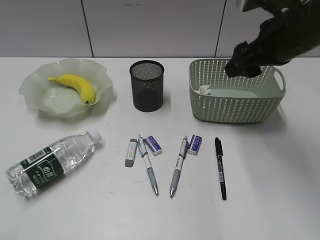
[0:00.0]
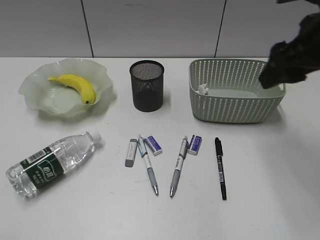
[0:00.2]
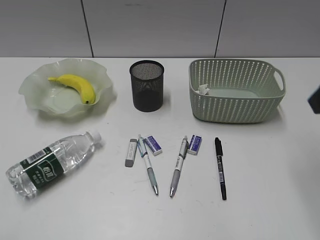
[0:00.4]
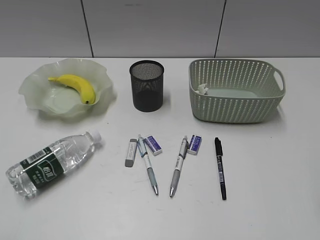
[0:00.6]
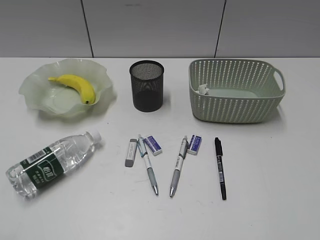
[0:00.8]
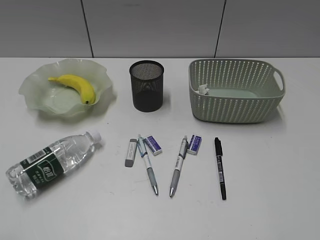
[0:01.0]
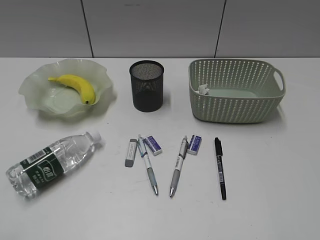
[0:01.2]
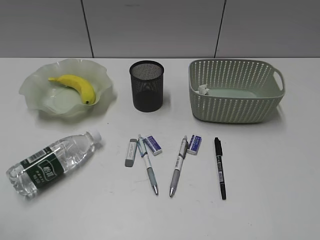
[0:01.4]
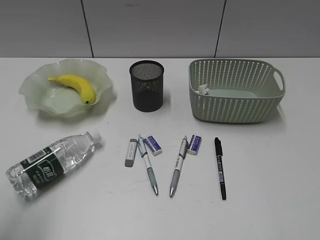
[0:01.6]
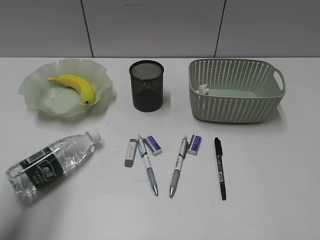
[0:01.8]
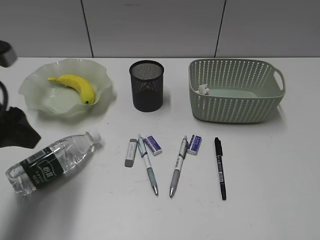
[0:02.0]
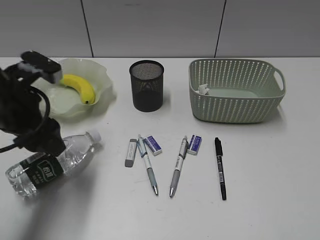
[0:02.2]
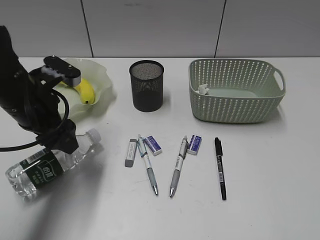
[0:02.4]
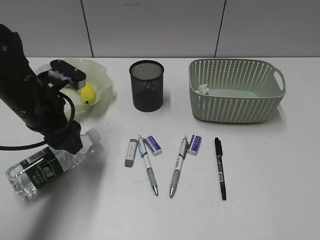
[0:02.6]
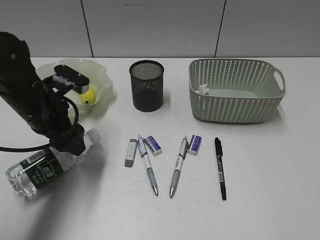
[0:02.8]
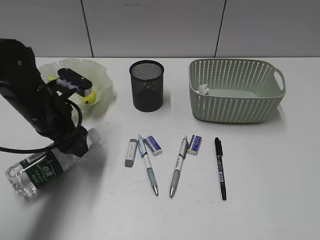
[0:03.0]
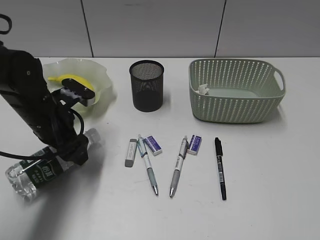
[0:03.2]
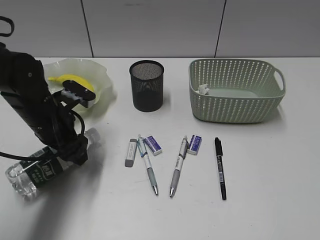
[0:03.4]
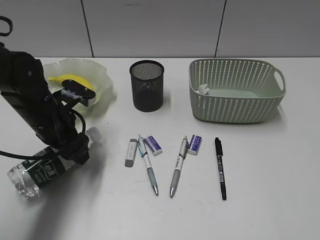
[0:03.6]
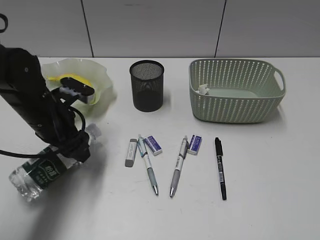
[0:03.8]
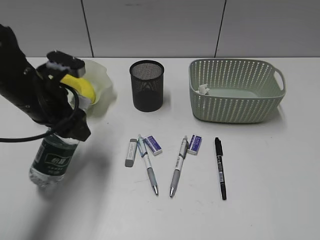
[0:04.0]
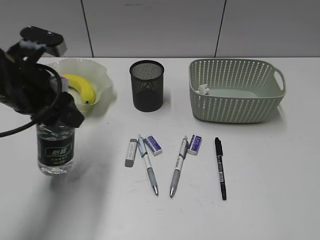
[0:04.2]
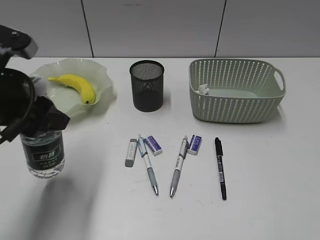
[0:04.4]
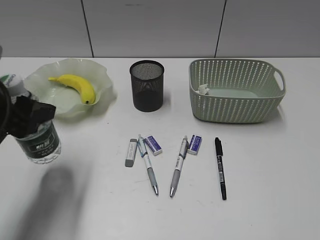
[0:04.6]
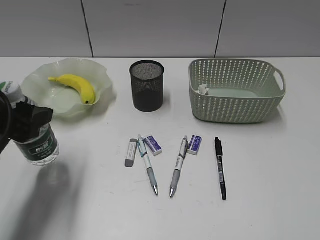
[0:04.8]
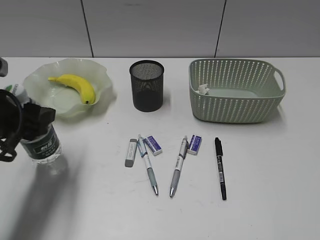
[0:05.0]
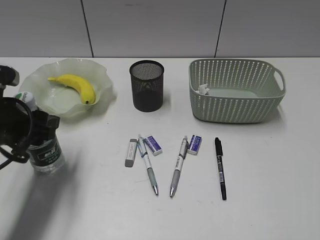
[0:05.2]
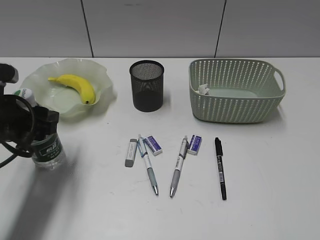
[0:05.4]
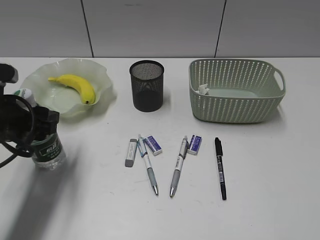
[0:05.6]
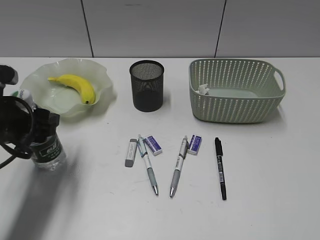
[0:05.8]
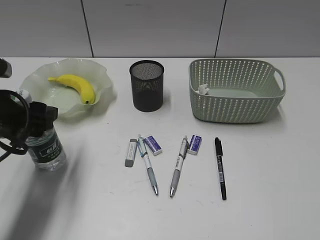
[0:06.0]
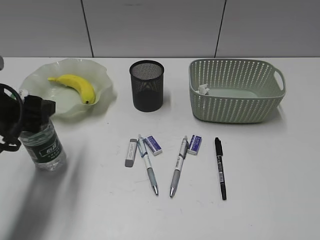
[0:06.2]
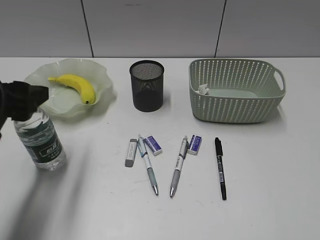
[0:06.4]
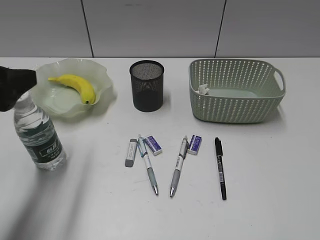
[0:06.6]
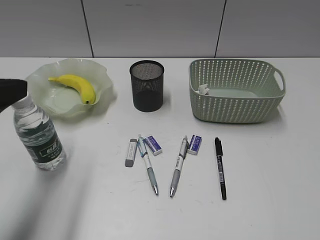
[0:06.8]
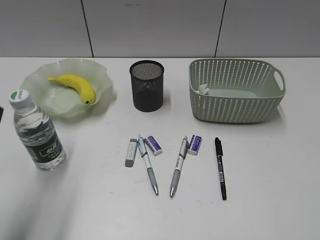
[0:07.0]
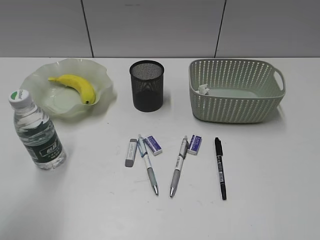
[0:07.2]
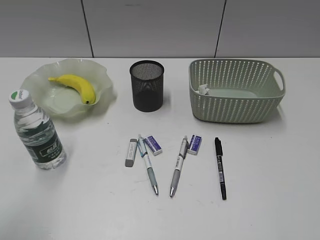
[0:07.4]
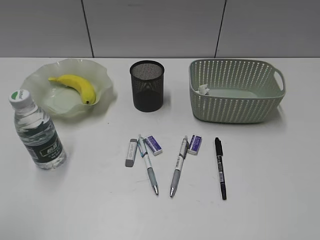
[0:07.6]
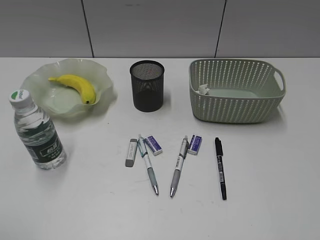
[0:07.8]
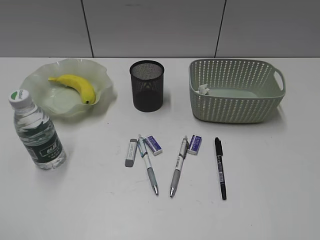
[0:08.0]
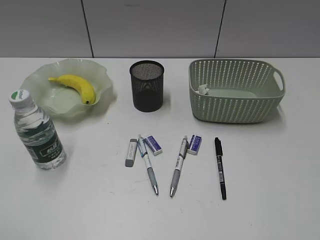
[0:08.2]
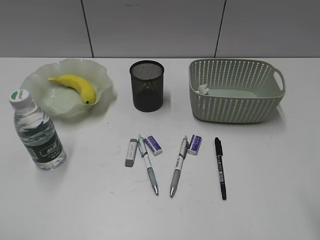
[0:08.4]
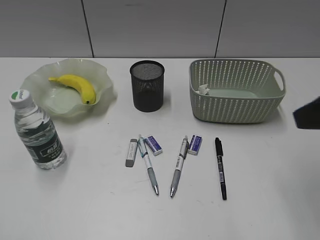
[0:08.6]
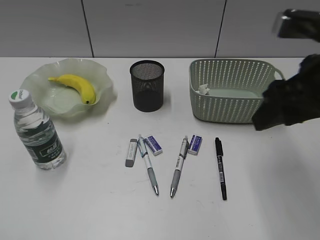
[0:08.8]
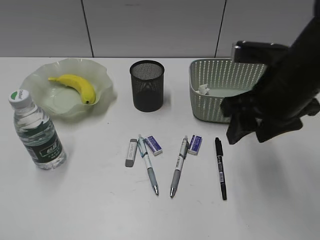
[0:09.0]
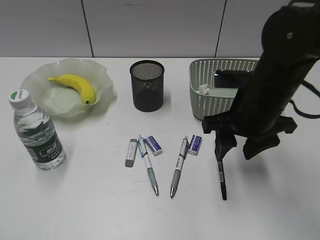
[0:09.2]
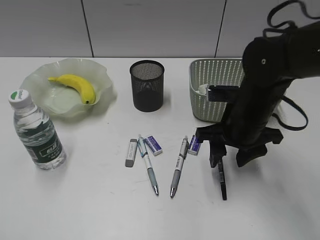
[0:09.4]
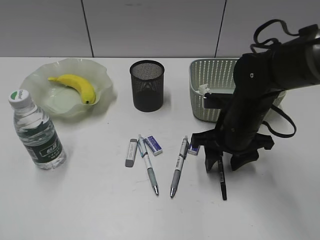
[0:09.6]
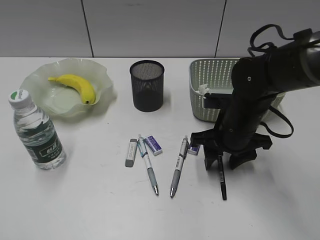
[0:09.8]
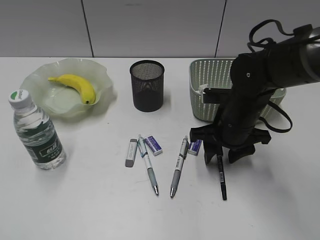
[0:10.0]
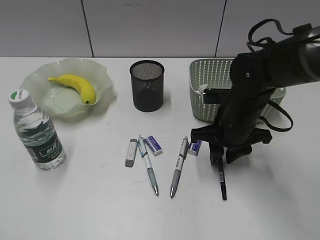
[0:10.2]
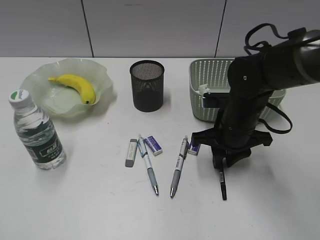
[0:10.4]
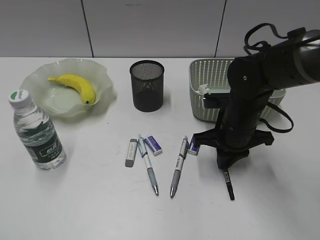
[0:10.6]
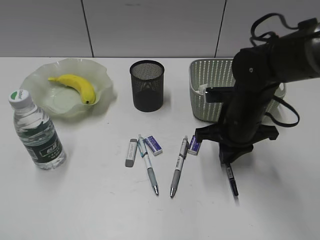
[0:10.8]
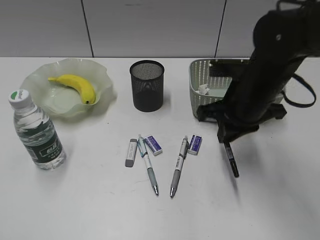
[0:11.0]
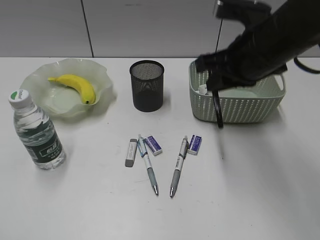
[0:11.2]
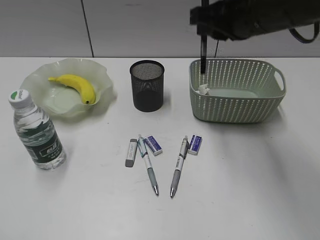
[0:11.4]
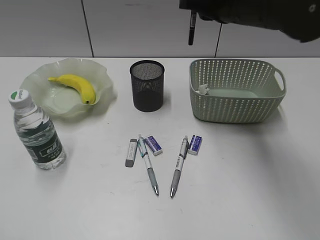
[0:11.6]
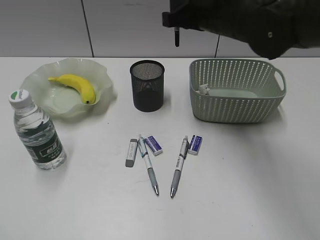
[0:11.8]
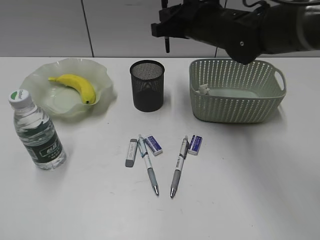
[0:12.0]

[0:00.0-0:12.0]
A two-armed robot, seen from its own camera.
Step, 0:00.0 to 0:03.4: Grasp the bottle with left gripper.
Step, 0:03.6 to 0:06.6: Stand the bottle with left gripper.
Step, 0:06.8 to 0:10.6: Grasp the black pen with right gripper.
0:00.0 to 0:01.6: The left gripper moves forward, some 10 cm. The right gripper travels backward by some 35 cm.
0:01.6 to 0:03.0: The left gripper heads forward, downward and to the right, covering some 30 cm, and opens.
0:03.0 to 0:04.4: The left gripper goes roughly 10 cm upward and backward.
0:04.4 to 0:06.0: The left gripper is displaced downward by roughly 5 cm.
0:06.0 to 0:07.6: The left gripper shifts approximately 20 cm backward and upward.
0:07.6 to 0:09.0: The right gripper shifts some 30 cm forward and to the left.
0:09.0 to 0:10.4: The right gripper heads downward, covering roughly 15 cm, and closes up.
0:10.4 to 0:12.0: The right gripper goes about 15 cm upward, forward and to the left, and closes up.

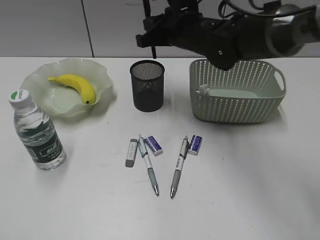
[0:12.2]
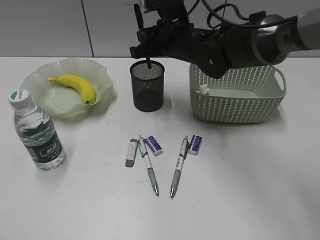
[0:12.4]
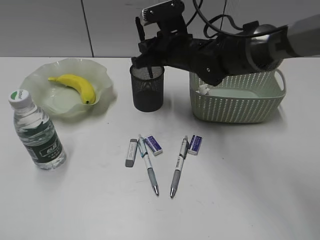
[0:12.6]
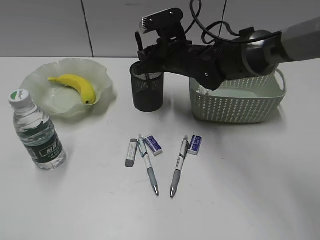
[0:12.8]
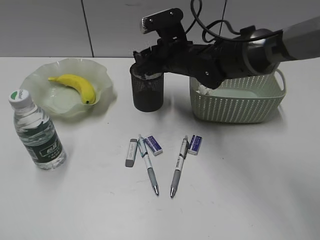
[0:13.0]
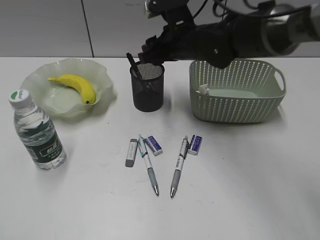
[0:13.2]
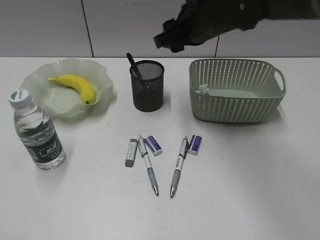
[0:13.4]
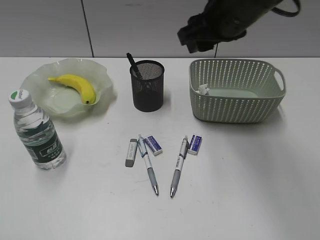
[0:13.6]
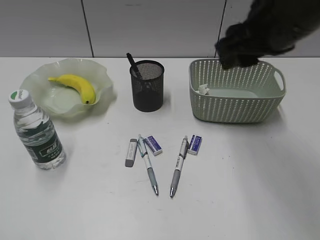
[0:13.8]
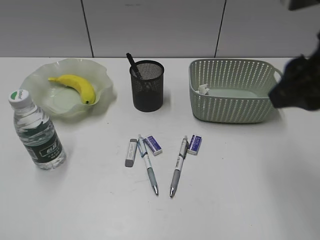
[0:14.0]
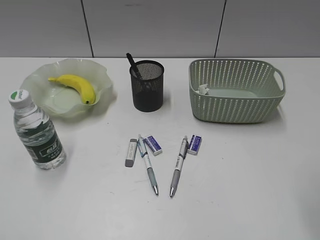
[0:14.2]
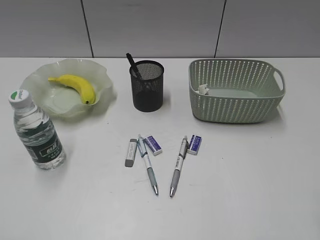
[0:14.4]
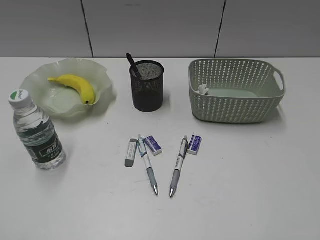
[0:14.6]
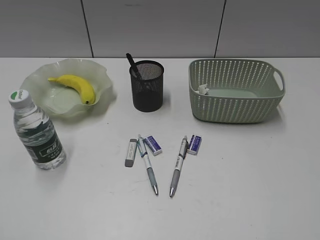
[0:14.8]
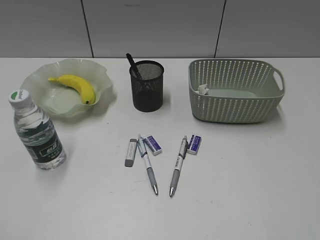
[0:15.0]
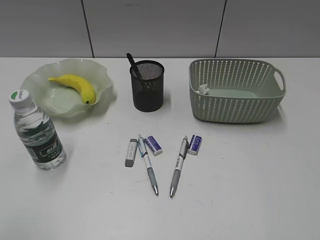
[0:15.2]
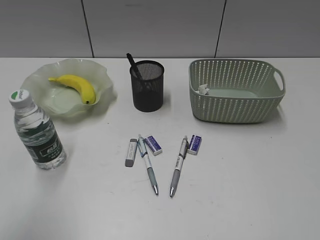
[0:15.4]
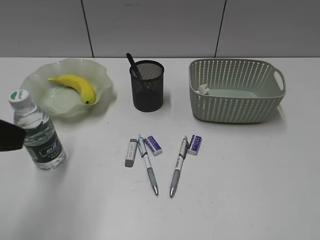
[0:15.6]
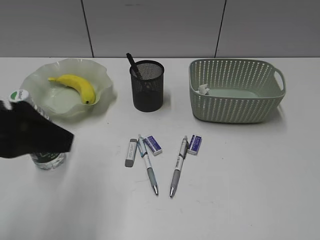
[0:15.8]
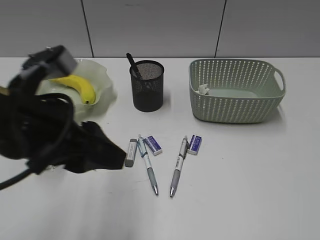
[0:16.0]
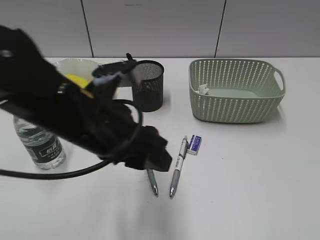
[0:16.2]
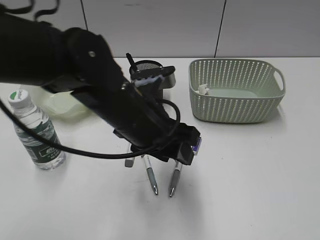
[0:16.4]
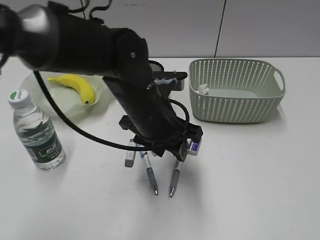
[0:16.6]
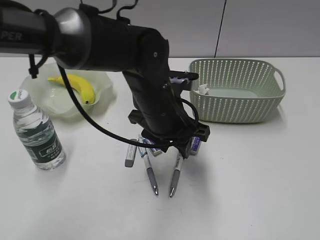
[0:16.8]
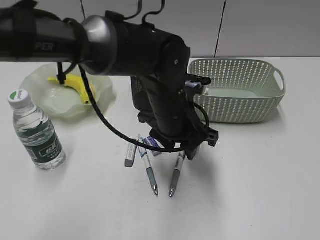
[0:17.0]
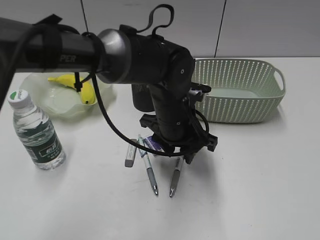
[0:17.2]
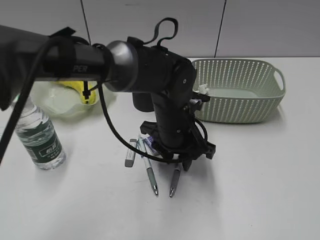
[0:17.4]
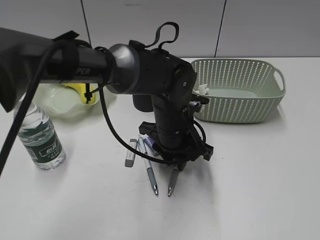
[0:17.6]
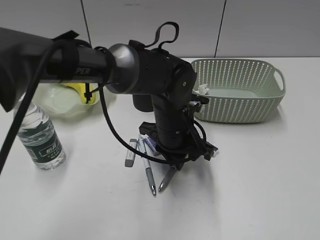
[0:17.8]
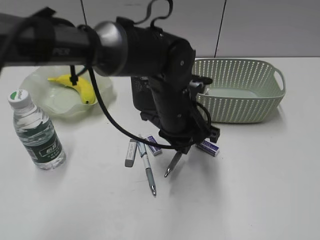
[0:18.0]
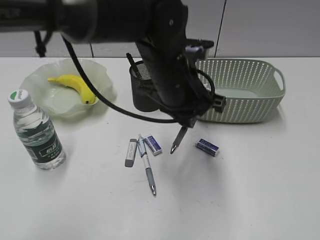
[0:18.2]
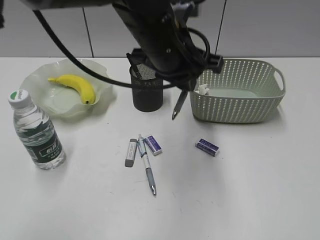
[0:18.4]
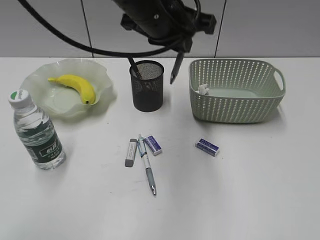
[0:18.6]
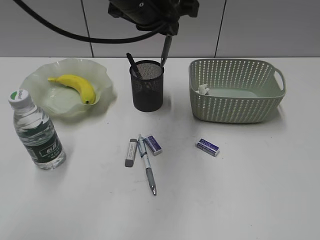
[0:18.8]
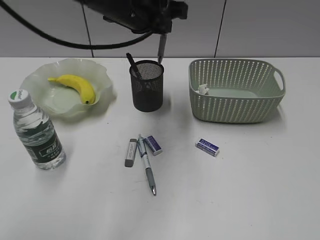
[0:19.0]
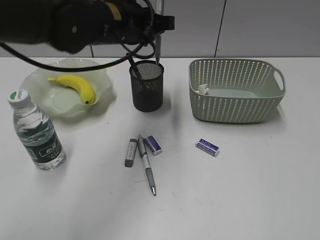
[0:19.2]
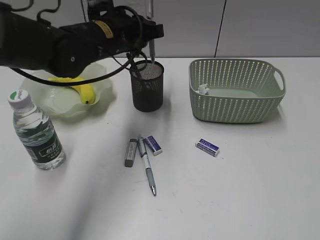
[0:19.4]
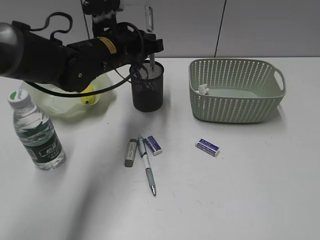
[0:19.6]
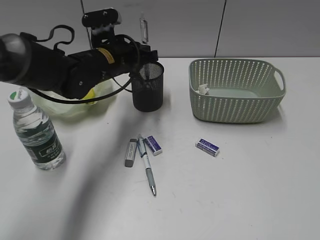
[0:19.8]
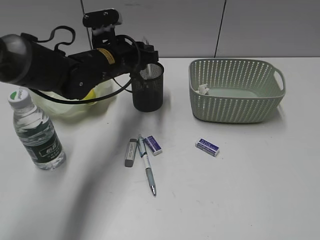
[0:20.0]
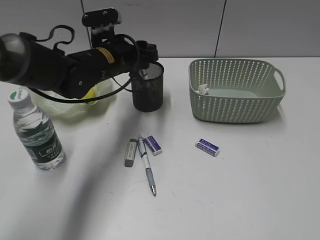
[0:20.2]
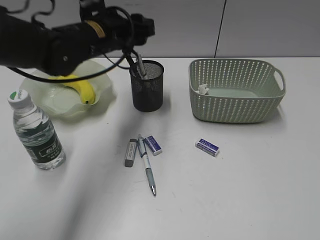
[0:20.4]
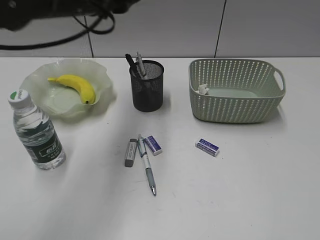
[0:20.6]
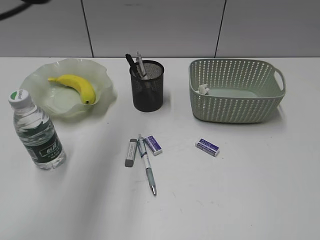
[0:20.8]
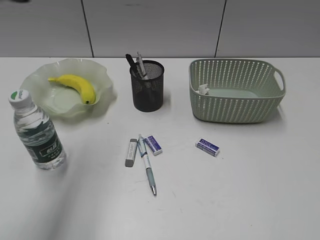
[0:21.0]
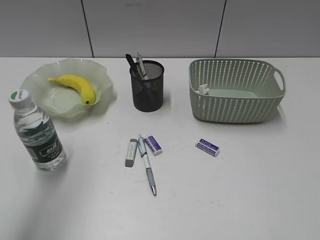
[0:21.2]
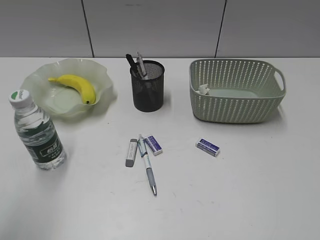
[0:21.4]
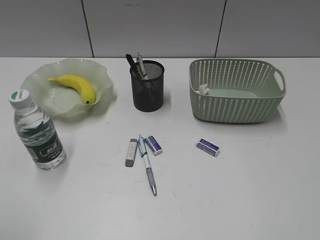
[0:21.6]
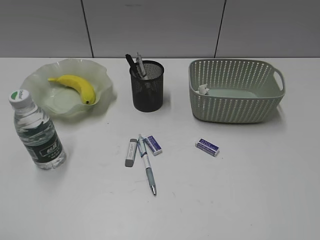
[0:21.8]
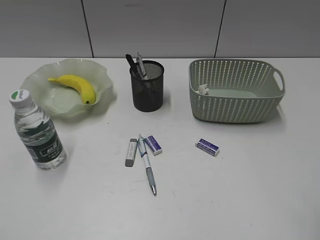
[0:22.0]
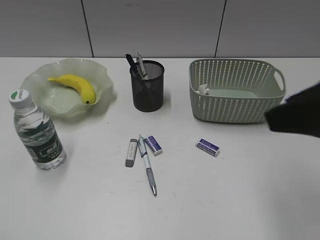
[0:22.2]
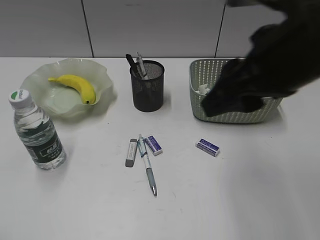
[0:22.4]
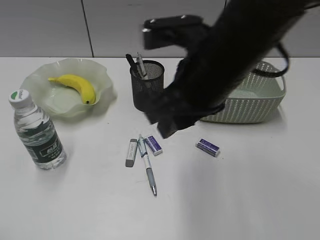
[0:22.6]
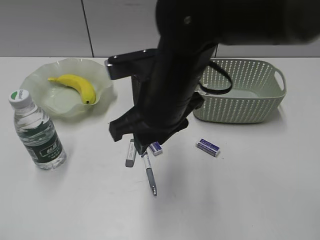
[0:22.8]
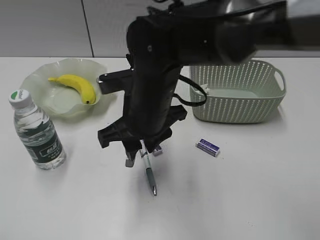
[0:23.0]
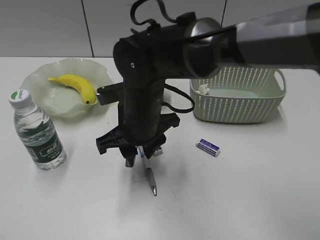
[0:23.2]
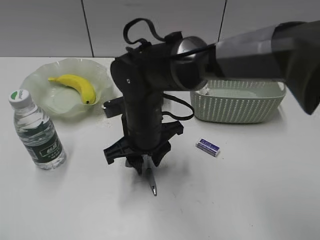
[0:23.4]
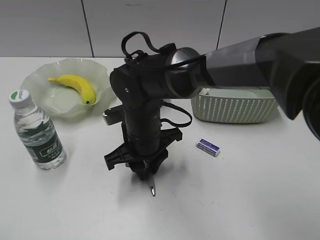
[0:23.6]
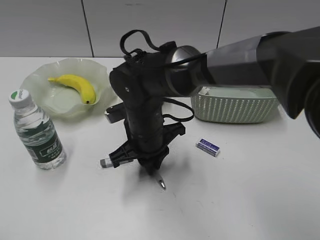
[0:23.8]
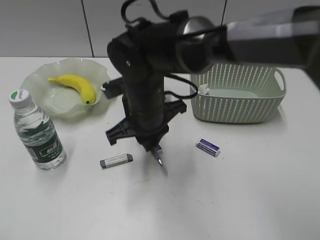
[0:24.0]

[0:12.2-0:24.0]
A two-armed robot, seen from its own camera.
Step, 0:13.2 to 0:17.8: Grasp the gray pen with left gripper.
Step, 0:18.0 to 0:20.2: Place the gray pen in pen holder with left gripper.
Step, 0:20.4 to 0:23.8: Grasp the blue pen with right gripper.
0:12.2 to 0:13.6: The right gripper moves upward and backward, some 10 cm, and opens.
0:13.6 to 0:15.2: The right gripper is displaced backward and to the right by approximately 40 cm.
0:15.2 to 0:16.6: The left gripper shifts about 40 cm to the right, forward and downward.
0:16.6 to 0:18.2: The left gripper changes place by about 5 cm, and closes up.
0:18.2 to 0:19.6: The left gripper moves to the left and forward, some 15 cm, and reaches some 10 cm upward, then returns.
0:19.6 to 0:21.0: The left gripper shifts approximately 30 cm upward, backward and to the left, and opens up.
0:21.0 to 0:22.6: The right gripper shifts about 35 cm to the left and forward; the left gripper goes some 30 cm backward, to the left and downward.
0:22.6 to 0:24.0: The right gripper goes roughly 20 cm downward, to the left and forward, and closes up.
